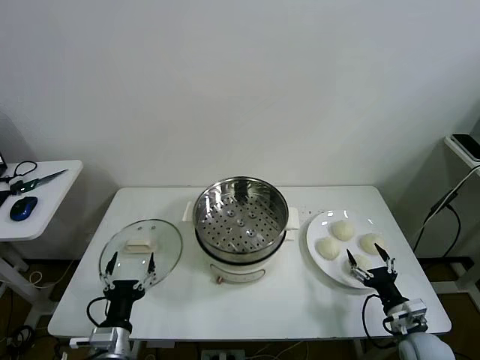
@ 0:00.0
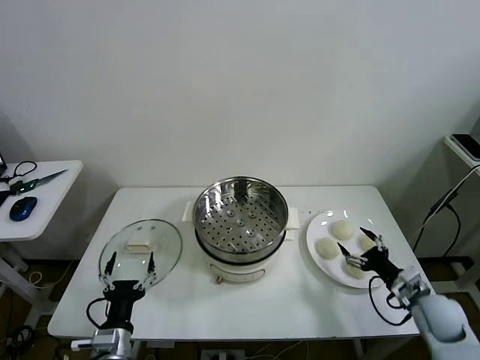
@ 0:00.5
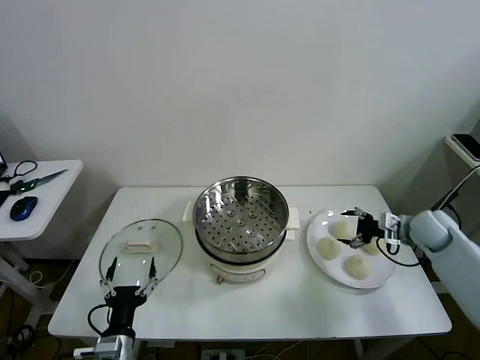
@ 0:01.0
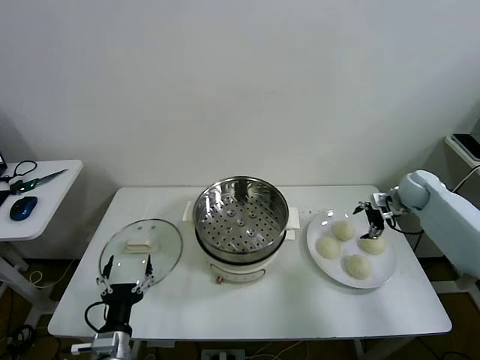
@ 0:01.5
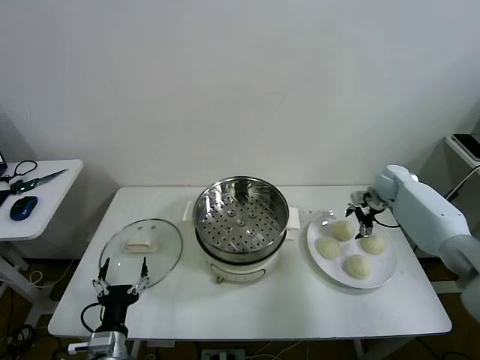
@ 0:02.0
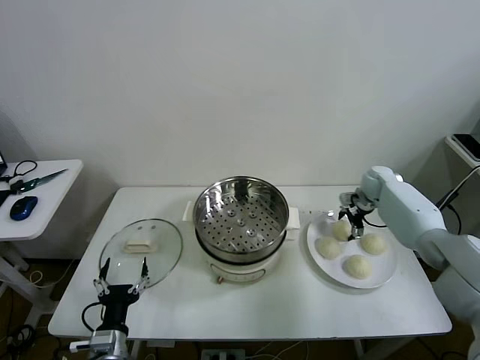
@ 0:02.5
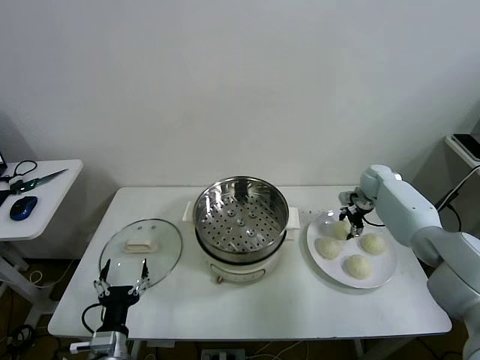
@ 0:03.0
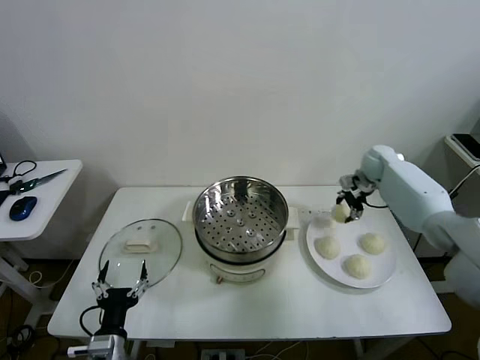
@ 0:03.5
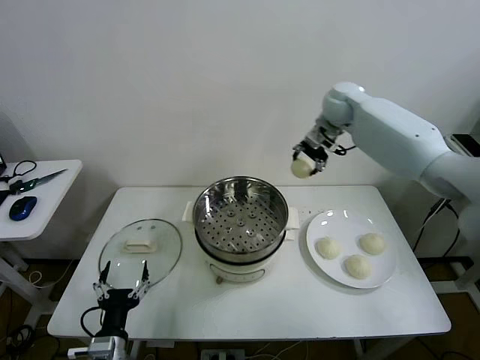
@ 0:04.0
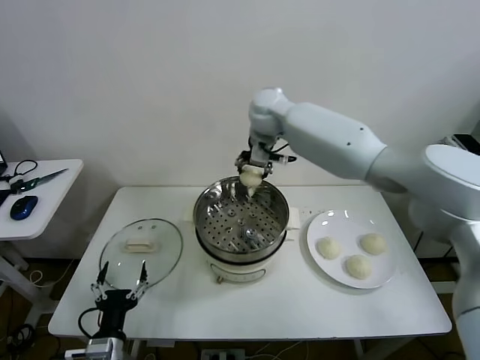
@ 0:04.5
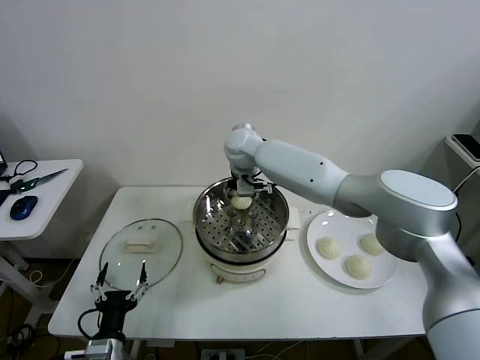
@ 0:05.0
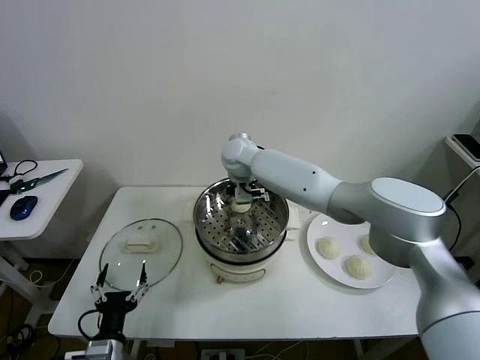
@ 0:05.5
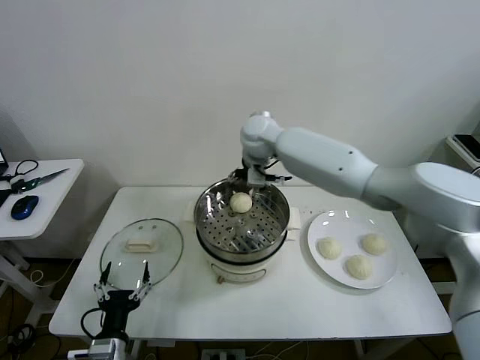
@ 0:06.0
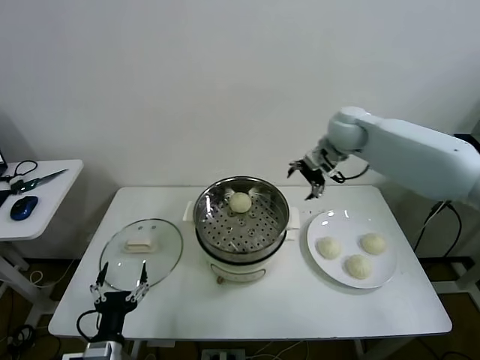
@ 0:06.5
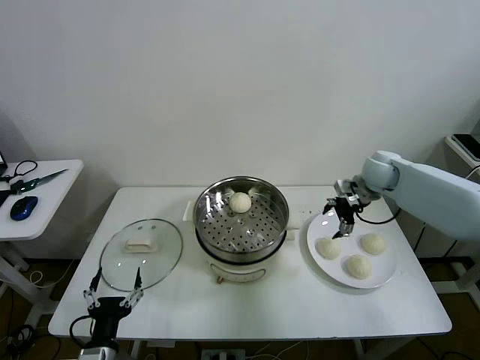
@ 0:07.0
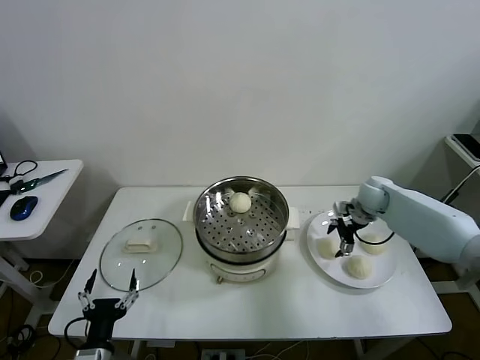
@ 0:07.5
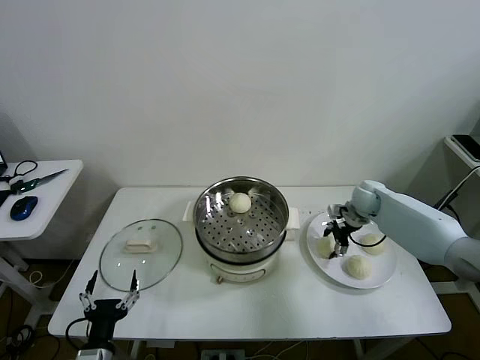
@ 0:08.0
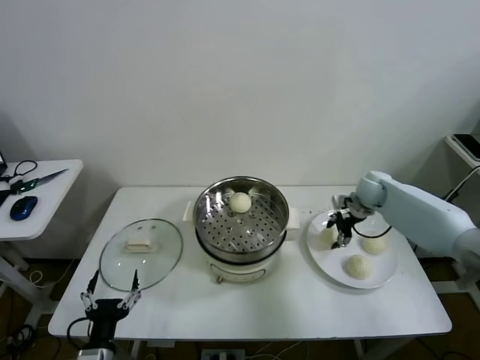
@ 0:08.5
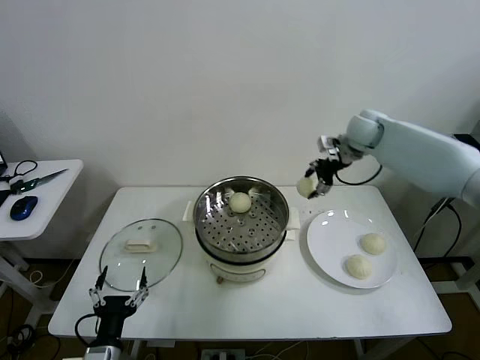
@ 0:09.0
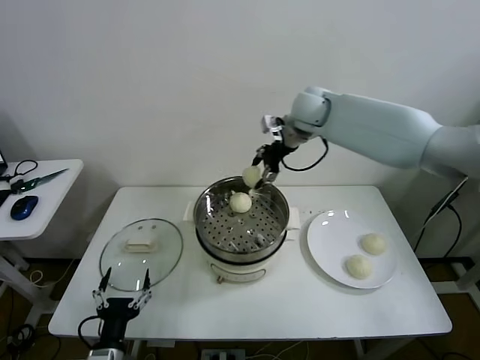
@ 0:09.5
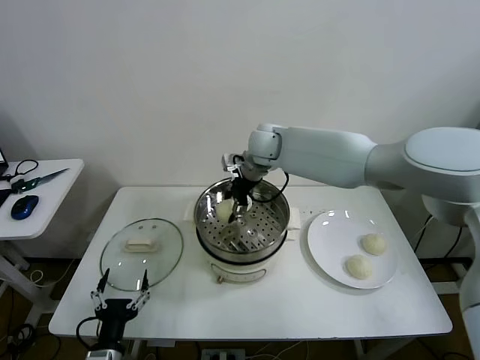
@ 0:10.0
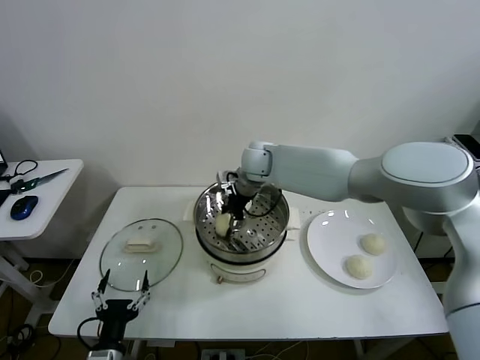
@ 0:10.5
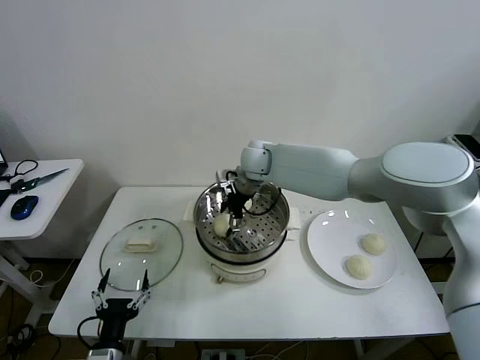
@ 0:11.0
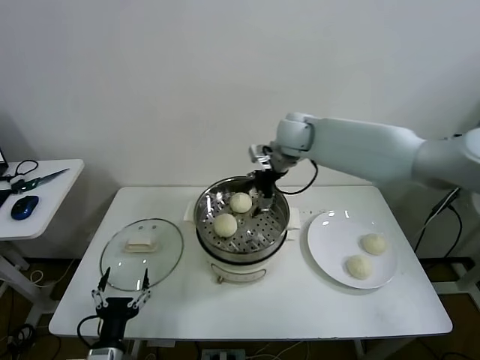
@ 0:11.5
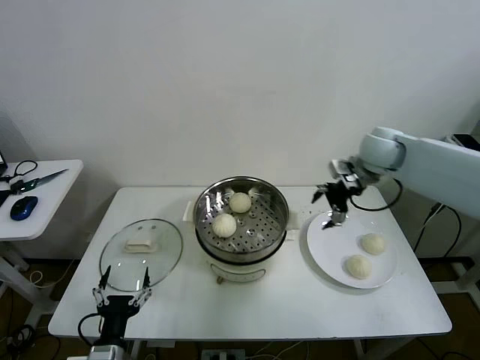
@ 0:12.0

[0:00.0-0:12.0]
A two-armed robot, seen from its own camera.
Task of the whole recording: take steamed baozi put them in steamer then cover it.
Step, 0:00.0 to 0:02.5: Grasp the baozi in the plate with right gripper.
Step, 0:03.0 to 0:05.5: Place the baozi on the steamer with right gripper.
Step, 0:06.0 to 0:08.0: Grasp the baozi in the plate with right gripper.
Step, 0:08.5 to 0:11.0: Place the baozi on the steamer with right gripper.
0:02.0 to 0:04.0: The right gripper moves upward and to the left, some 35 cm, and closes.
0:04.0 to 0:06.0: The right gripper is displaced to the left, backward and downward by some 15 cm, and opens up.
0:06.0 to 0:08.0: The right gripper goes about 35 cm to the right and downward, and closes.
0:08.0 to 0:10.0: The right gripper goes roughly 35 cm to the left and upward.
0:10.0 to 0:12.0: The right gripper moves to the right, about 30 cm, and opens its fingers.

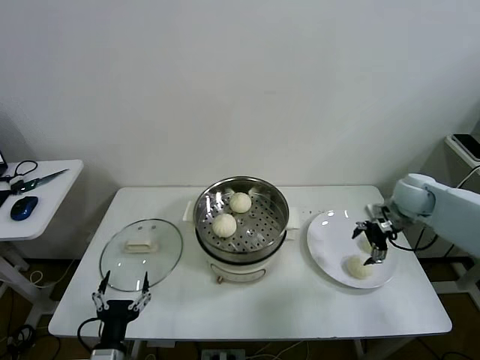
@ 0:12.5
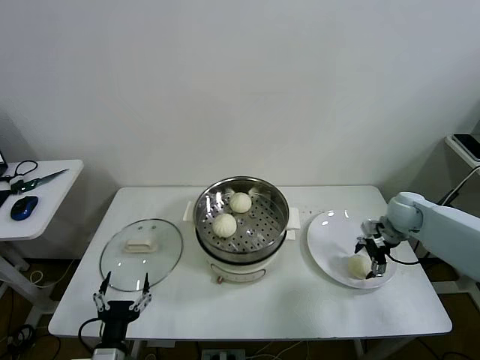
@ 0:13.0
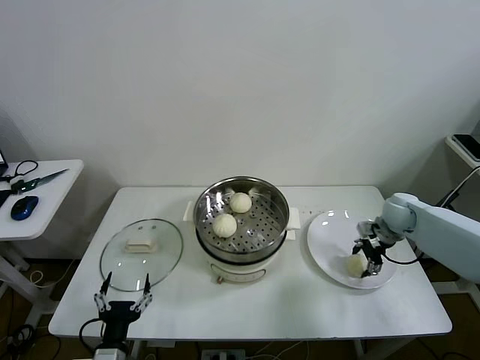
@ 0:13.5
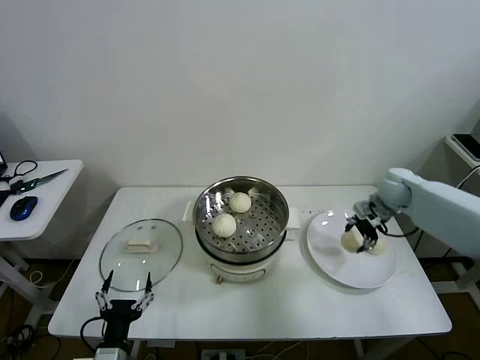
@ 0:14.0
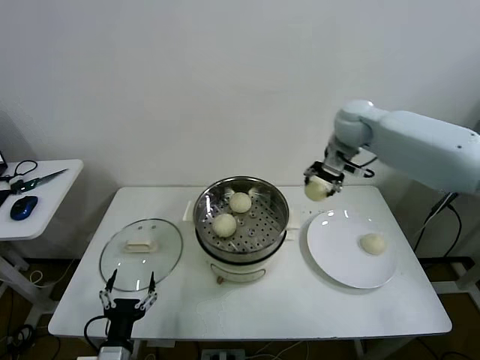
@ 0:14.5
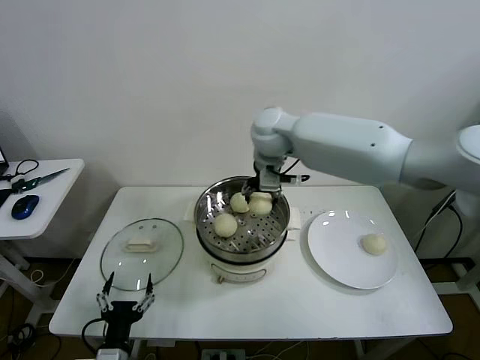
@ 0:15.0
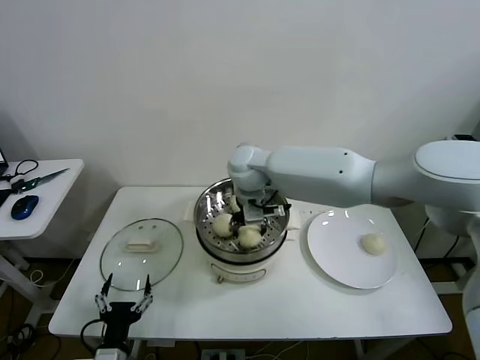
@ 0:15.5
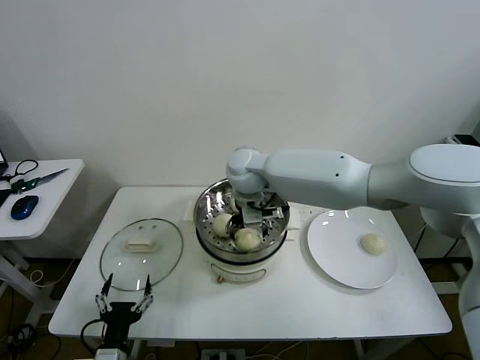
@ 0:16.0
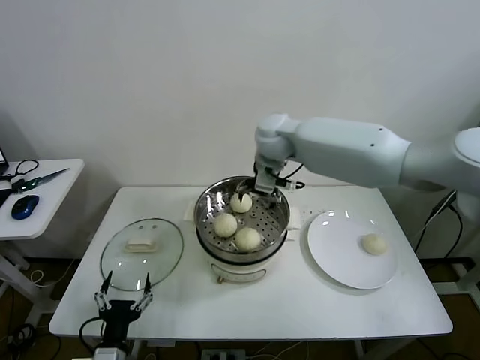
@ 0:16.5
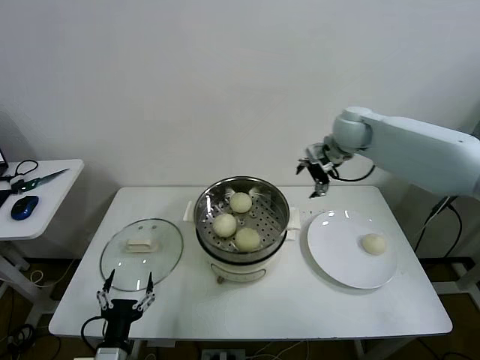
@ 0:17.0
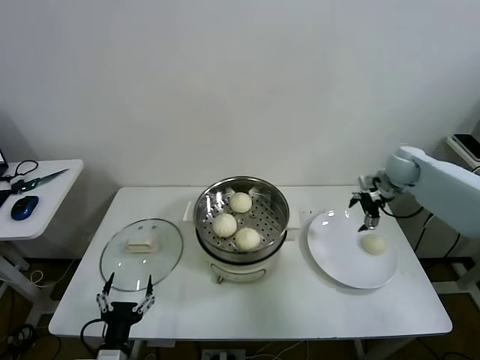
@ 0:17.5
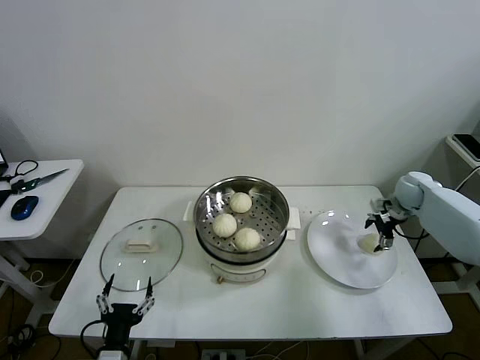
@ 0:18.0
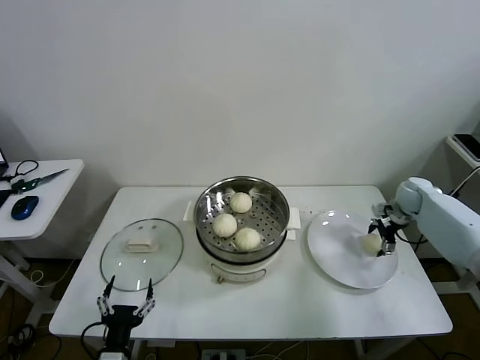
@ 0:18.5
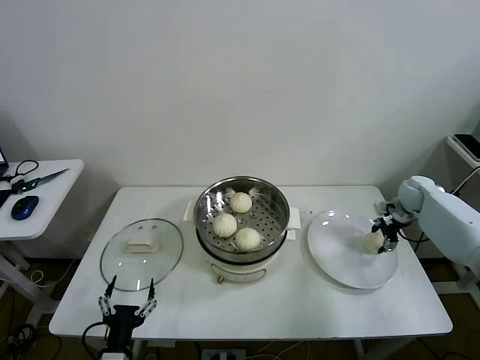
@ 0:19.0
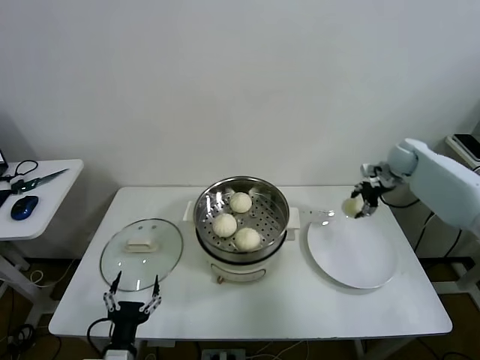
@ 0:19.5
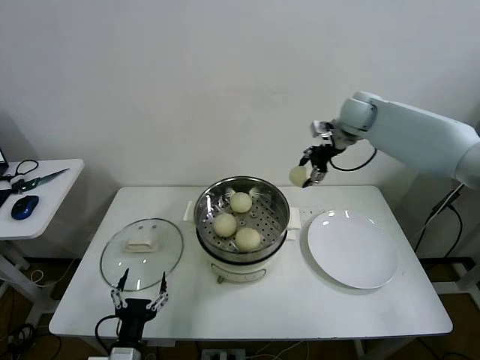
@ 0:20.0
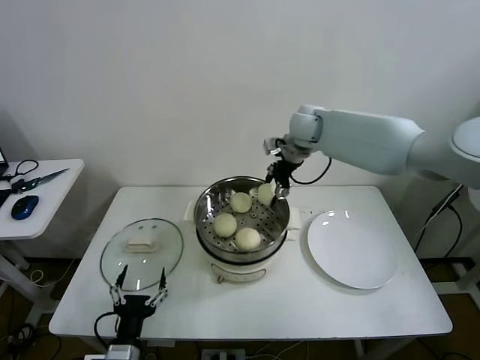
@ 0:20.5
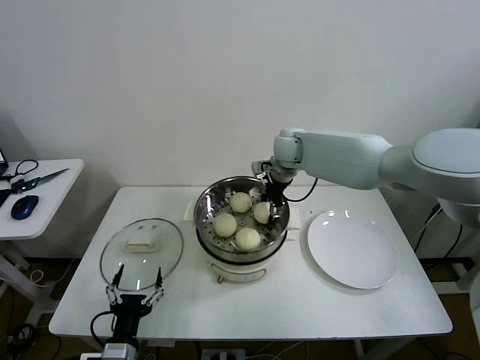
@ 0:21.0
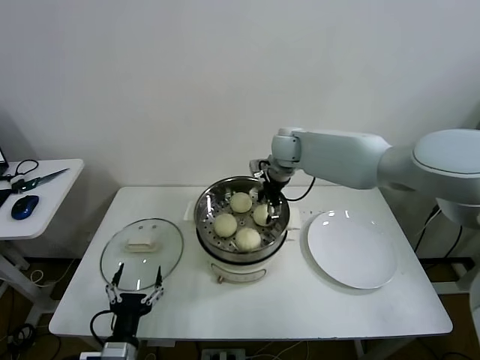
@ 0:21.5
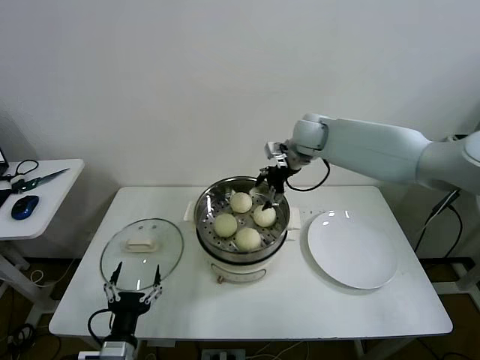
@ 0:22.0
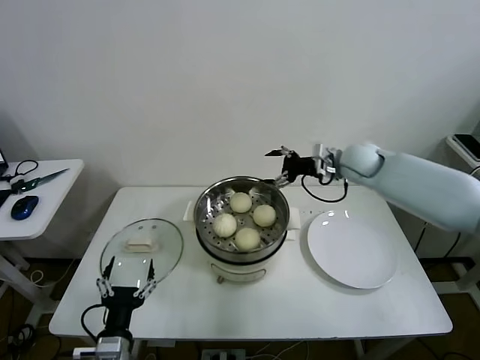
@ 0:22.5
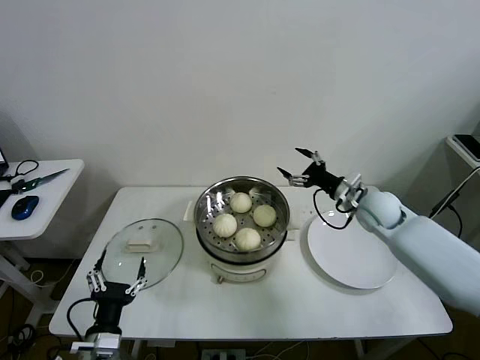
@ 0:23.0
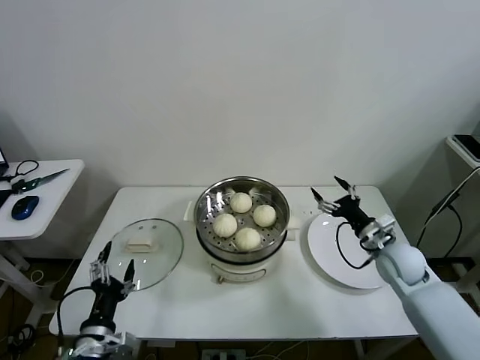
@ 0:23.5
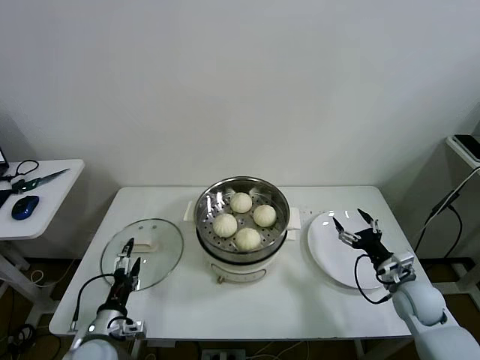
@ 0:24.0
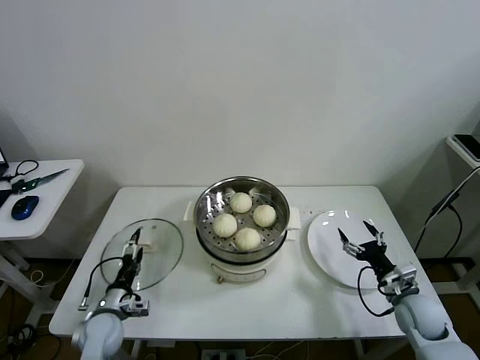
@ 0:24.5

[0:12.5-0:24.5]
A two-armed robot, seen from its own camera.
Task of the whole recording: take steamed baozi put them in steamer then cover it.
Step, 0:14.0 to 0:16.0: Place the baozi on the steamer with right gripper.
Step, 0:16.5 to 0:18.5: Grasp the baozi in the plate with right gripper.
Step, 0:19.5 to 0:21.5: Place the baozi on the steamer with right gripper.
0:12.5 to 0:14.5: The right gripper moves to the left, upward and forward, some 25 cm, and closes its fingers.
0:14.5 to 0:16.5: The right gripper is displaced to the left by about 15 cm, and opens up.
0:16.5 to 0:18.5: The right gripper goes some 40 cm to the right and downward.
0:18.5 to 0:20.5: The right gripper travels to the left and upward by some 40 cm, and closes.
0:20.5 to 0:22.5: The right gripper travels to the right, downward and backward by roughly 15 cm, and opens its fingers.
0:22.5 to 0:24.5: The right gripper goes some 35 cm backward, downward and to the right, while the left gripper is displaced forward, downward and to the left by roughly 20 cm.

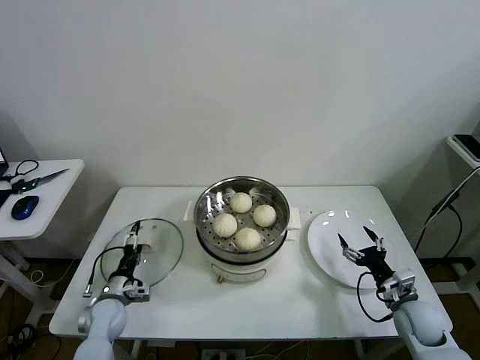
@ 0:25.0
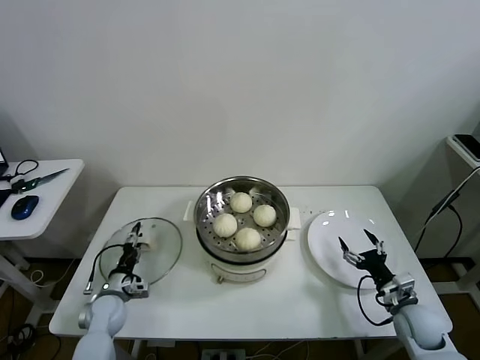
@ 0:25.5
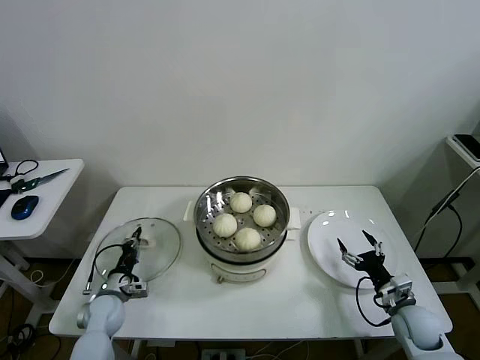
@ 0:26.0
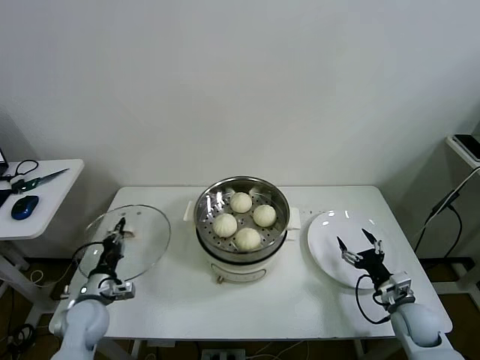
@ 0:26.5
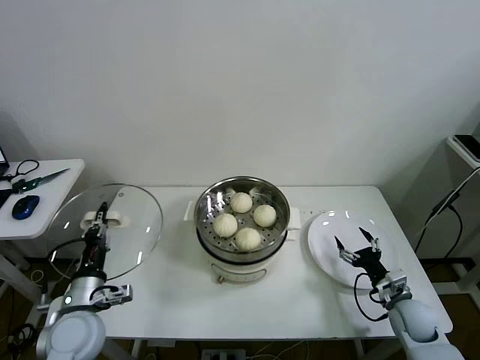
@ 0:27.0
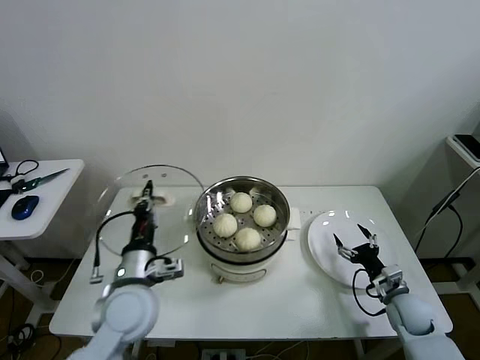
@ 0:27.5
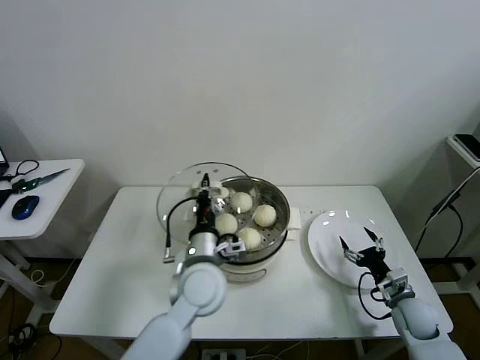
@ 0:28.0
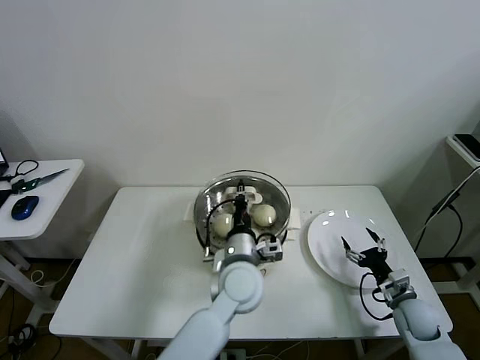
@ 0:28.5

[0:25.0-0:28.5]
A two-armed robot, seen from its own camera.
Task of the whole recording: take steamed baozi put them in steamer then cover it.
0:25.0 to 0:27.0: The left gripper heads upward and backward, covering approximately 15 cm, and closes.
0:27.0 to 0:28.5: The left gripper heads to the right, covering about 30 cm.
